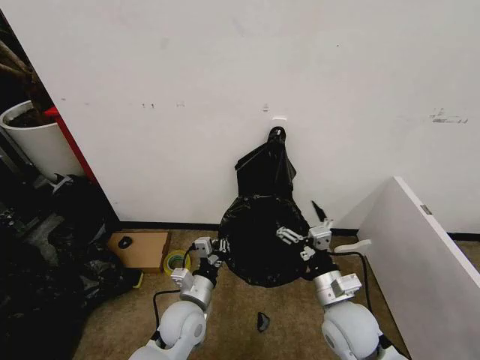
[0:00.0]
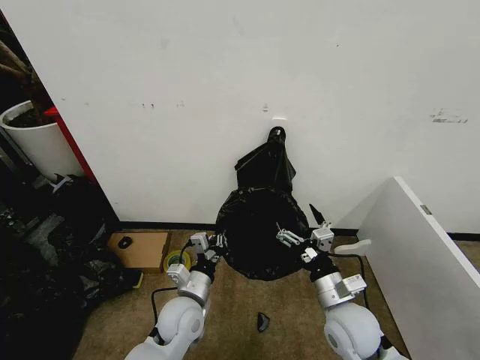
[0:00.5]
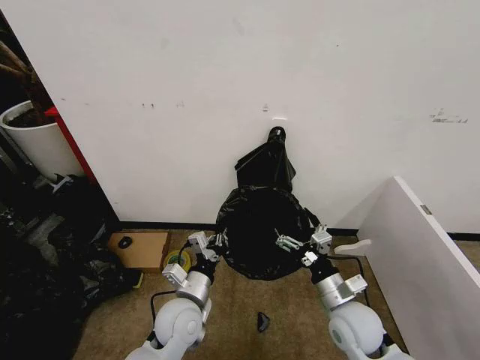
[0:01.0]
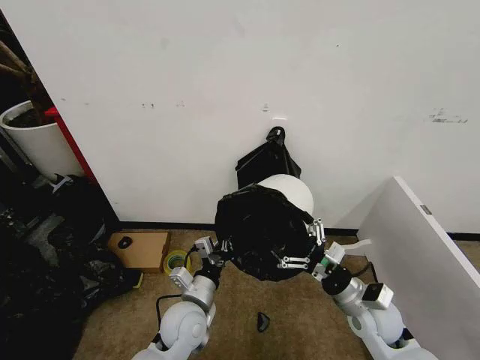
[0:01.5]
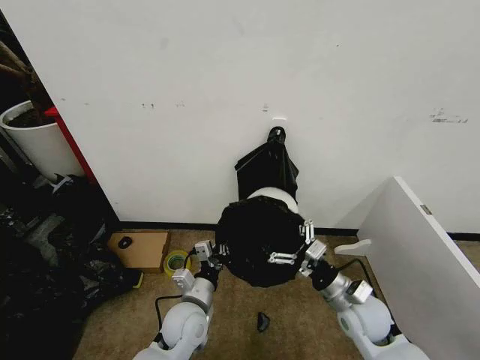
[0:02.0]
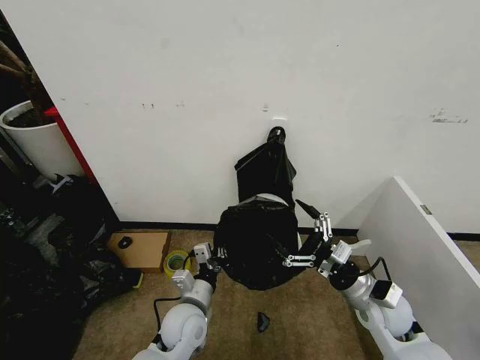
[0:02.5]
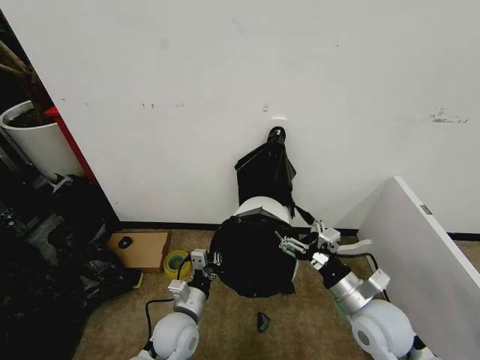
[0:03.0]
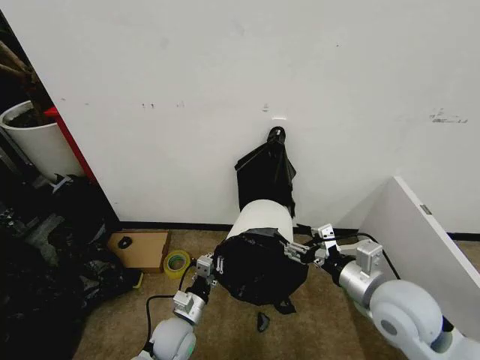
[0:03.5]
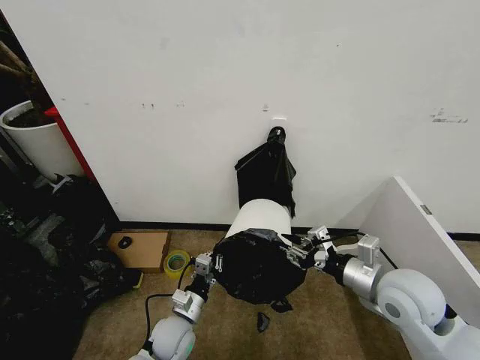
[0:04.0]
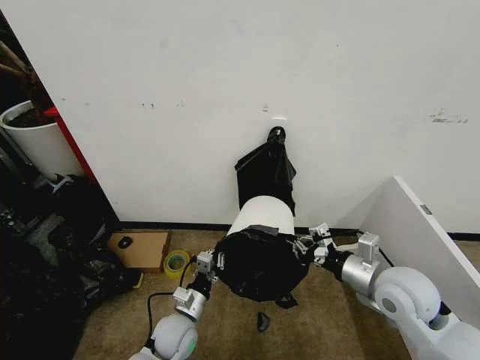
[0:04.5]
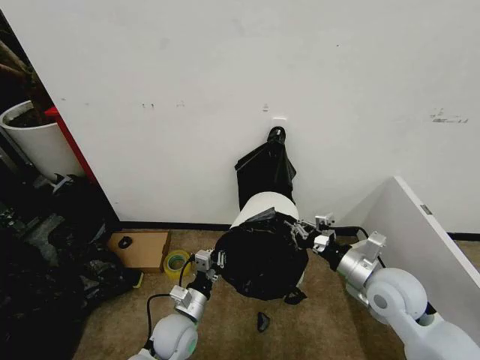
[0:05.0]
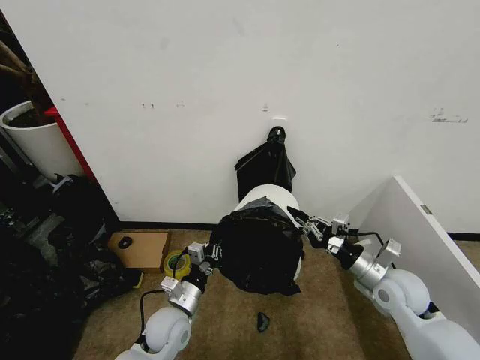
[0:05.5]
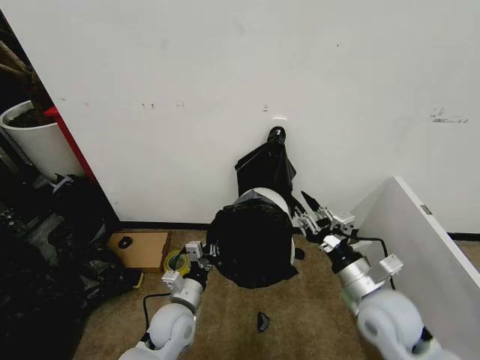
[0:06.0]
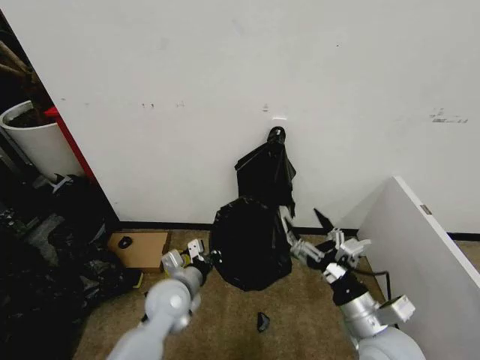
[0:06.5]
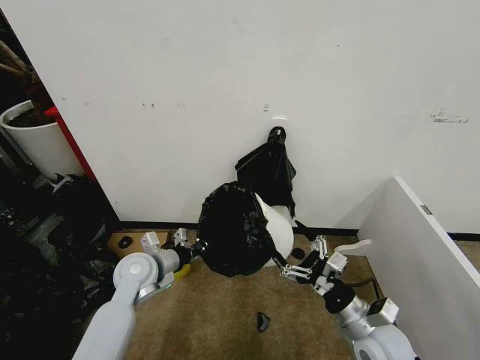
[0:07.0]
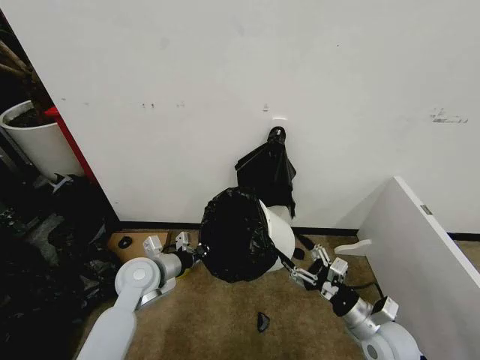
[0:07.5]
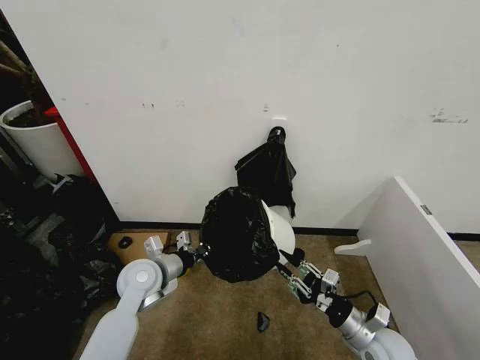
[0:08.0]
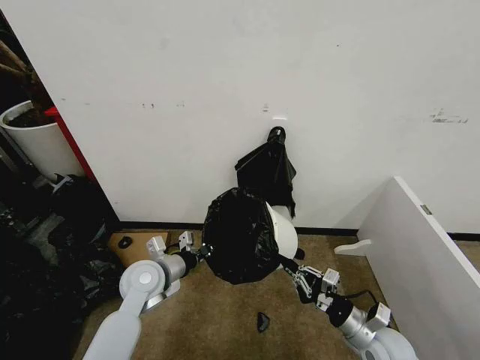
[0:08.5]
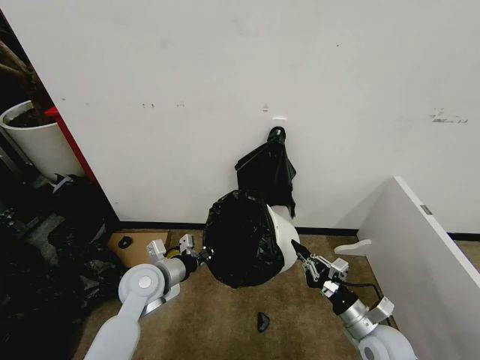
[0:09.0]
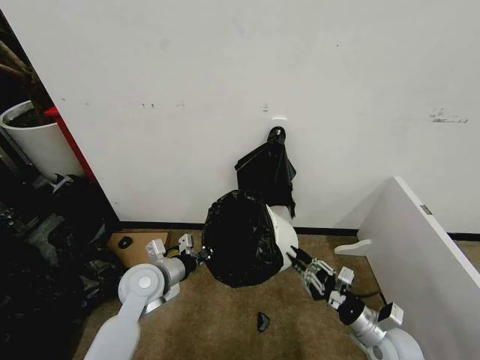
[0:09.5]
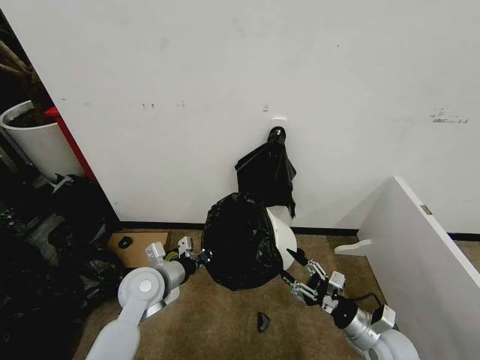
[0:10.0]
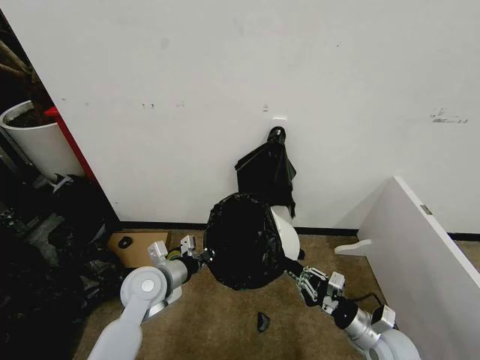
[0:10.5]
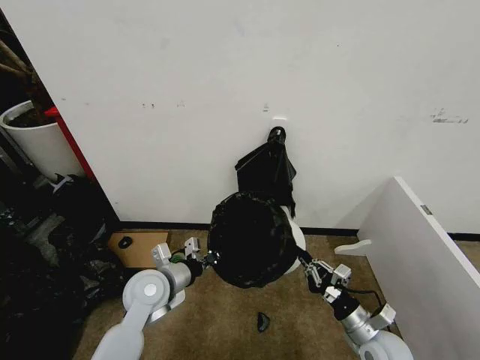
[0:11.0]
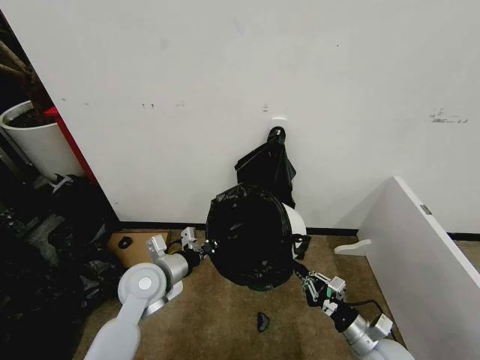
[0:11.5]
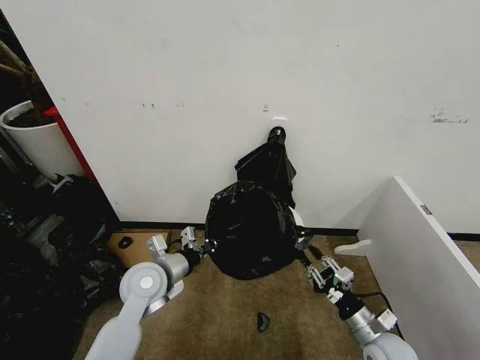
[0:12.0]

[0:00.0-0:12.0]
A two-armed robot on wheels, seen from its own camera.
Task of the whole recording: Place the garbage bag over the trash bin.
0:00.0 to 0:02.0: The right gripper moves to the right, roughly 5 cm.
0:02.0 to 0:04.0: The left gripper is displaced downward by approximately 5 cm. Meanwhile the right gripper is displaced upward by some 15 cm, and closes its fingers.
0:04.0 to 0:06.0: The left gripper is displaced upward by about 5 cm, while the right gripper closes, then reopens.
0:06.0 to 0:08.0: The left gripper shifts some 15 cm upward, to the left and forward. Meanwhile the right gripper heads downward, covering roughly 15 cm, and opens, then closes again.
0:08.0 to 0:10.0: The grippers move only a little.

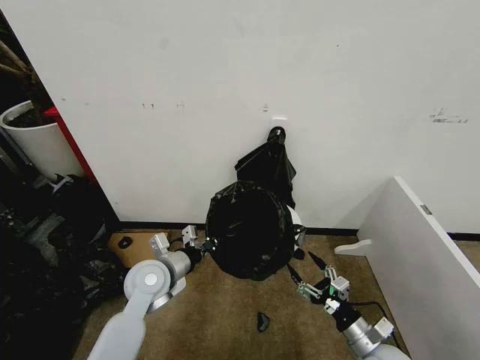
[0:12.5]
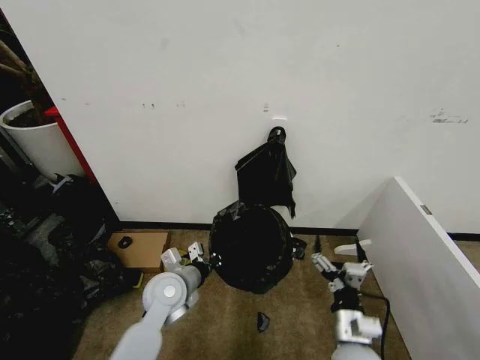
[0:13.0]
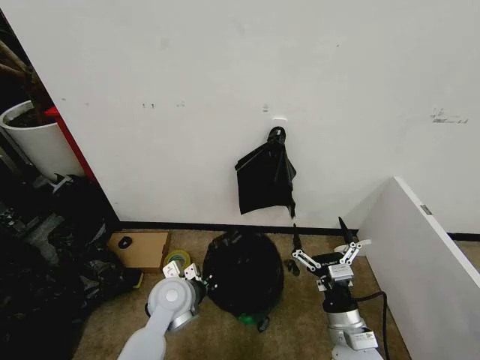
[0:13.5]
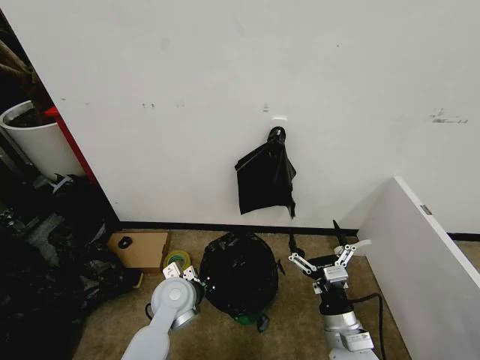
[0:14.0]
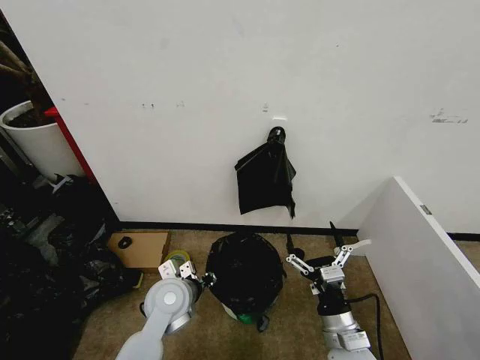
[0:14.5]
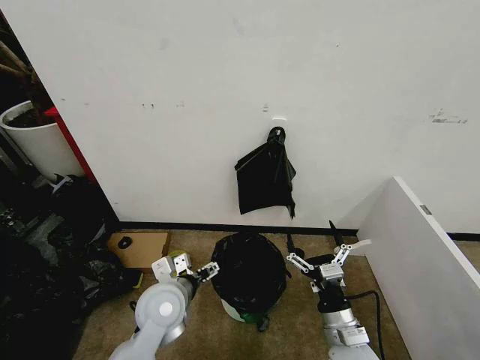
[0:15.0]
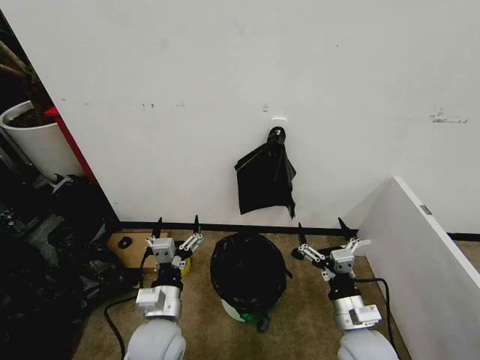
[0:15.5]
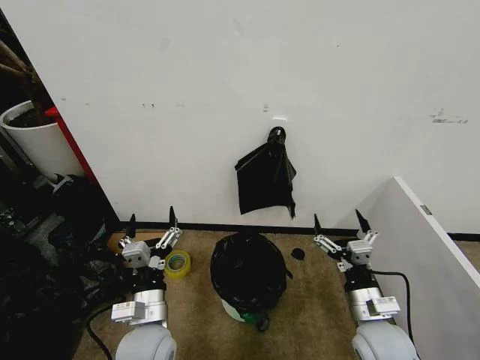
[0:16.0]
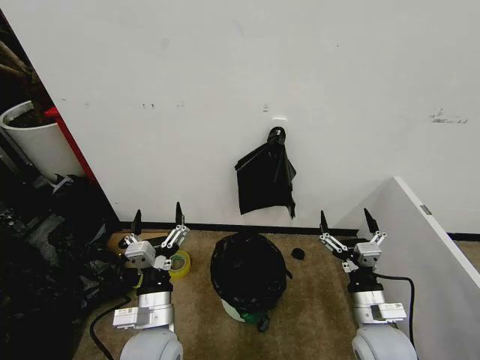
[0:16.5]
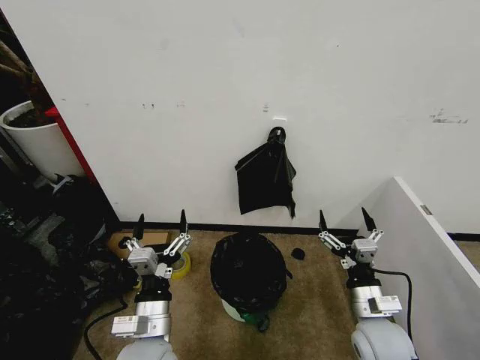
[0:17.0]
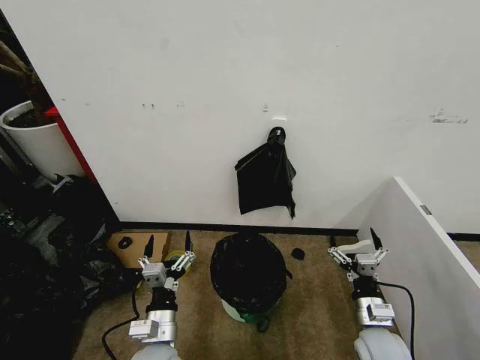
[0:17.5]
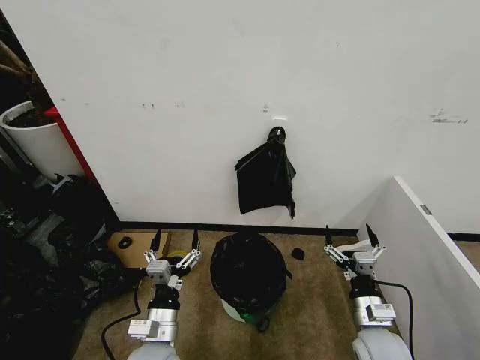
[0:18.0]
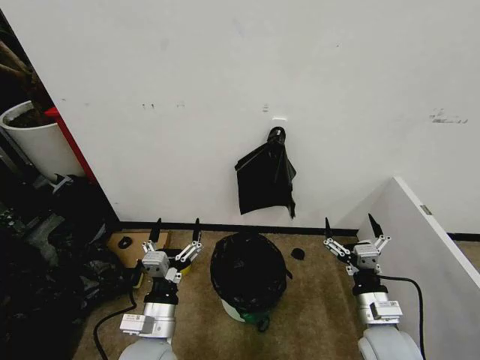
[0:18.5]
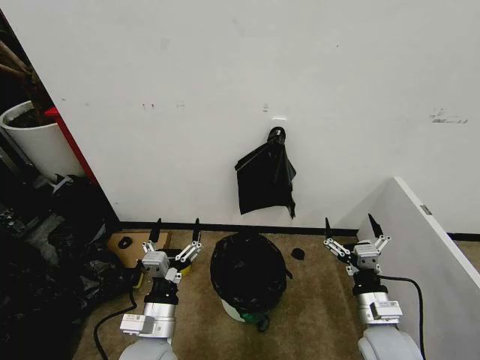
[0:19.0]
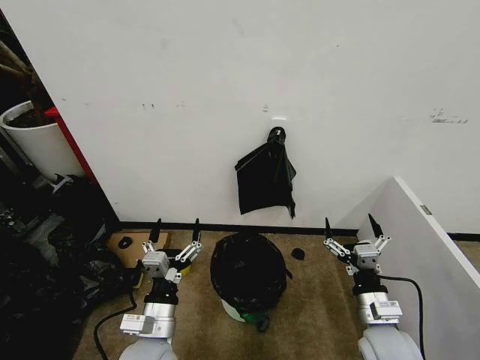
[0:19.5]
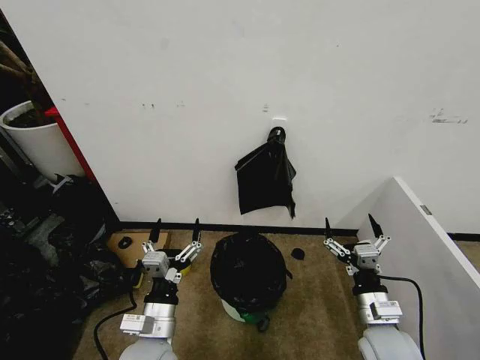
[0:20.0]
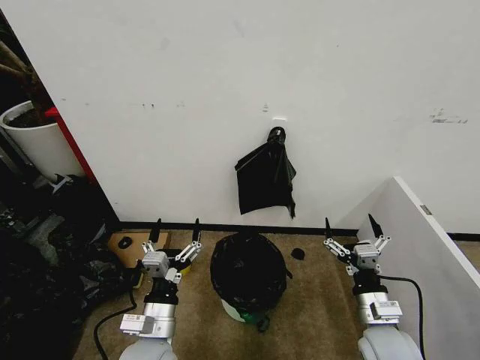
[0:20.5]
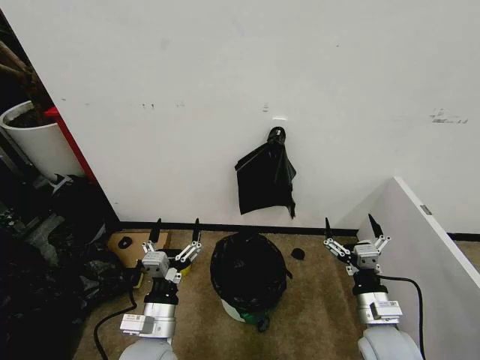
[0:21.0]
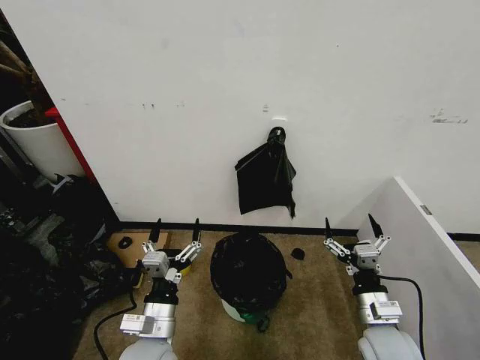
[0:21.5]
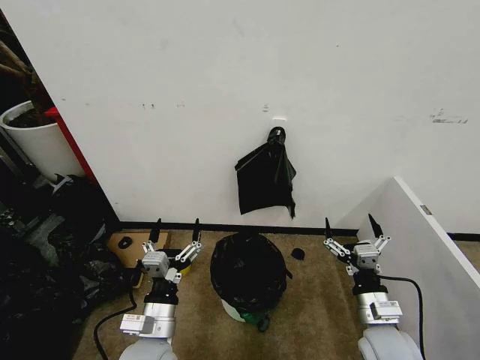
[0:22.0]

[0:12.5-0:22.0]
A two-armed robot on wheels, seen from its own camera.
Task of the whole recording: Place the garbage bag over the trash bin.
0:12.5 to 0:14.5: The left gripper shifts by roughly 5 cm, and opens up. The right gripper goes roughly 10 cm to the left and upward.
0:14.5 to 0:16.5: The right gripper heads to the right, covering some 5 cm. The left gripper shifts roughly 10 cm backward, and opens.
0:16.5 to 0:18.0: The left gripper heads downward, covering approximately 5 cm. Meanwhile the right gripper moves approximately 5 cm.
0:18.0 to 0:20.0: The grippers stay close to where they were, moving slightly.
0:20.0 to 0:22.0: Both grippers stay about where they are.
